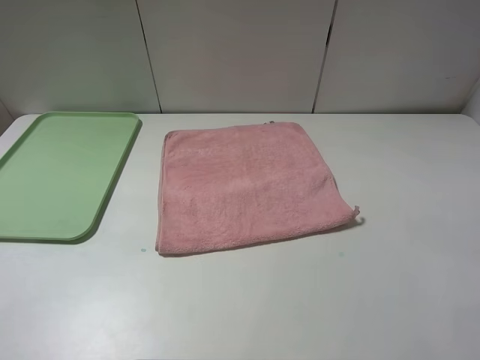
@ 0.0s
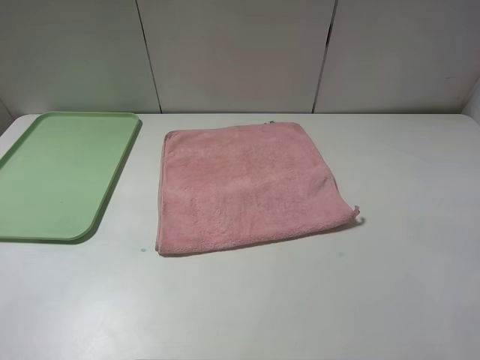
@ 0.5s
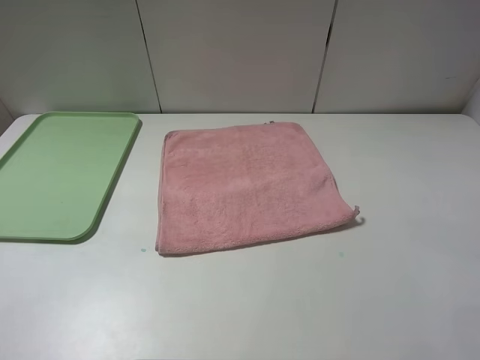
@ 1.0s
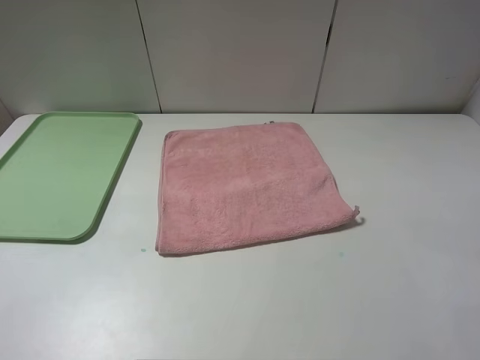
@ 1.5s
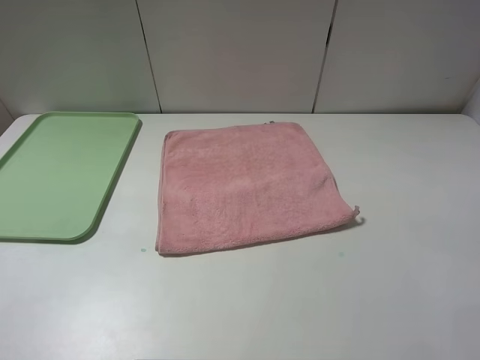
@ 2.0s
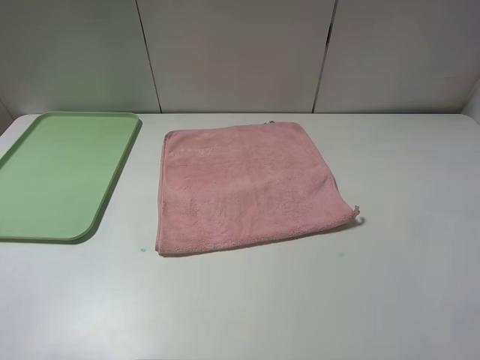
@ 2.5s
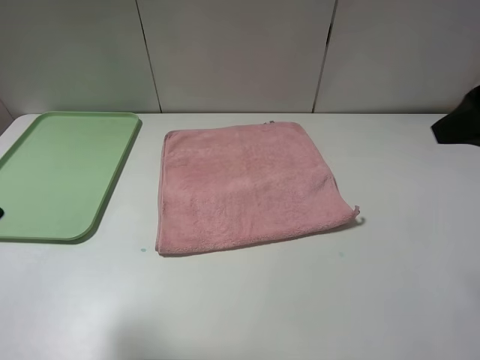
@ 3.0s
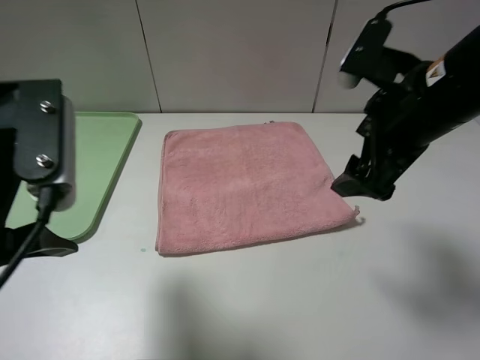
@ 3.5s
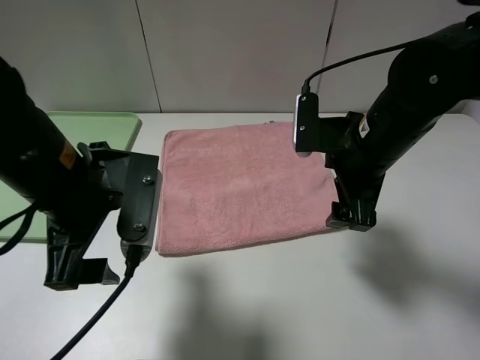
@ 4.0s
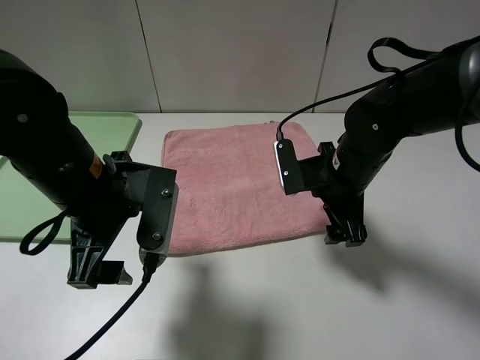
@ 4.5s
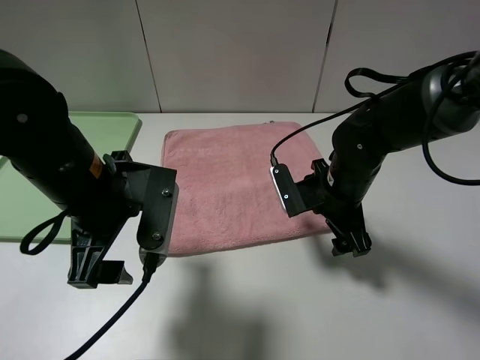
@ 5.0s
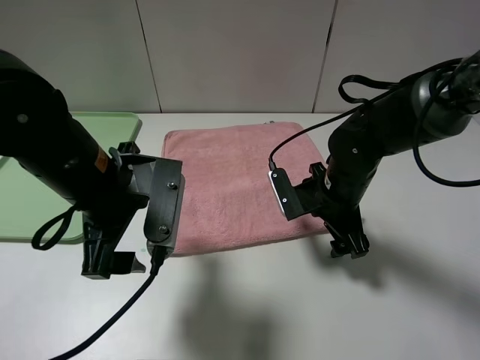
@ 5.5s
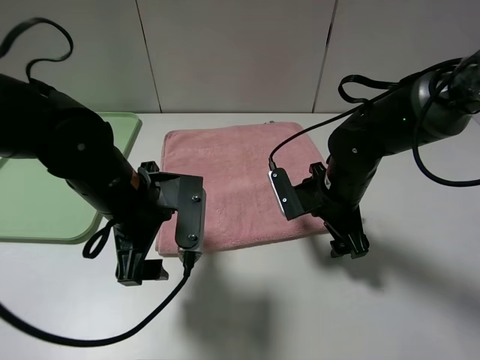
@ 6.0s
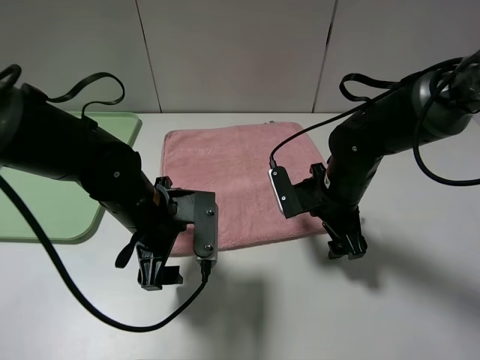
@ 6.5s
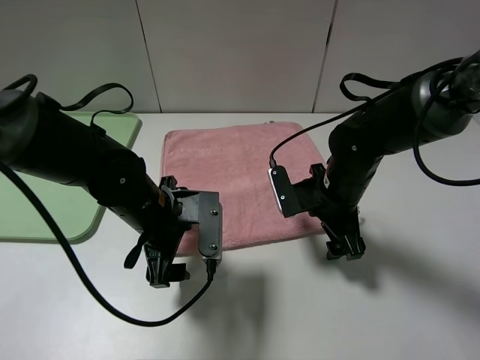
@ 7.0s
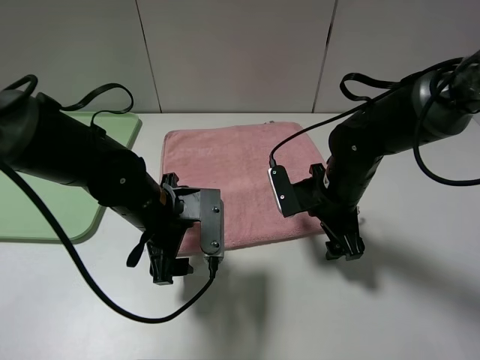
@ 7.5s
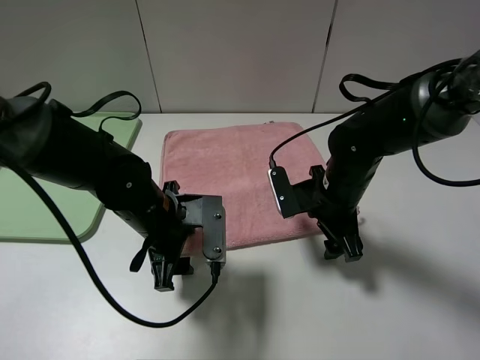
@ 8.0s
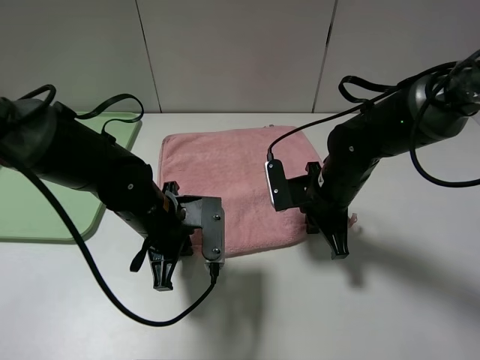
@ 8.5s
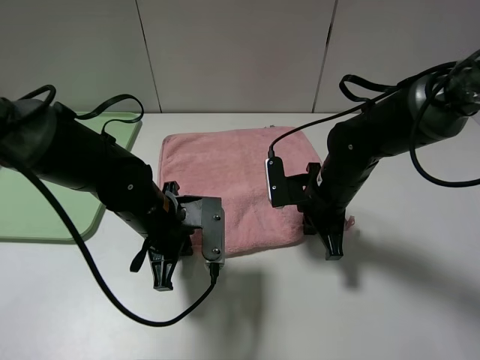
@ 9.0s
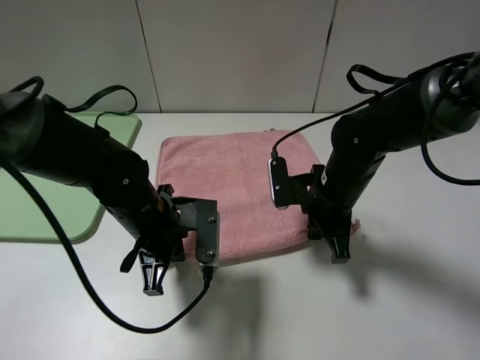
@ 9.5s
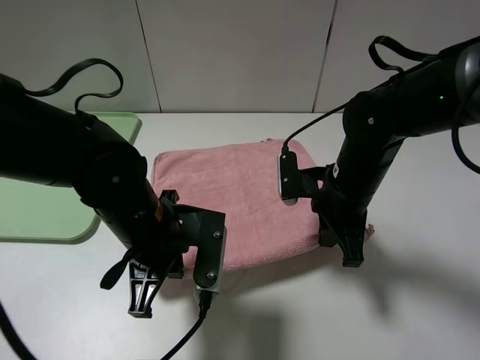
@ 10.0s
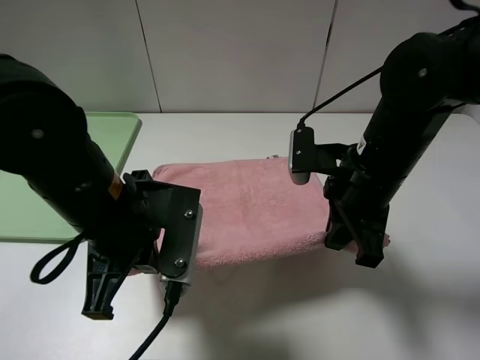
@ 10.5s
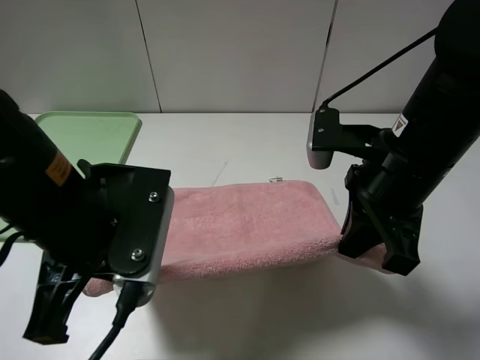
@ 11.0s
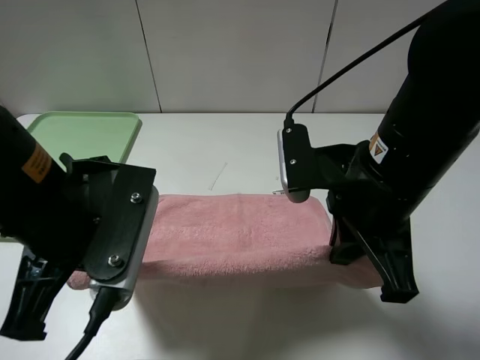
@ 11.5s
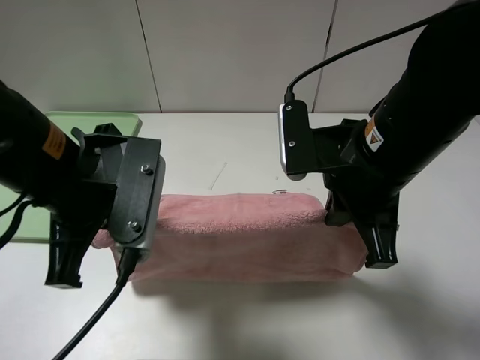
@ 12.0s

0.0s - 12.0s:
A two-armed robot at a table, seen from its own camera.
0.0s - 2.0s: Neither gripper changes place.
2.0s - 4.0s: The left gripper heads forward and to the right, covering approximately 25 cm. Meanwhile the right gripper moves forward and to the left, approximately 30 cm.
4.0s - 6.0s: The right gripper shifts some 10 cm downward, while the left gripper goes some 5 cm downward.
6.0s - 8.0s: The left gripper is displaced downward by roughly 5 cm.
8.0s - 10.0s: The left gripper moves approximately 5 cm, and closes. The right gripper closes.
10.0s - 12.0s: The left gripper shifts approximately 10 cm upward. Meanwhile the right gripper heads upward and backward, covering some 10 cm.

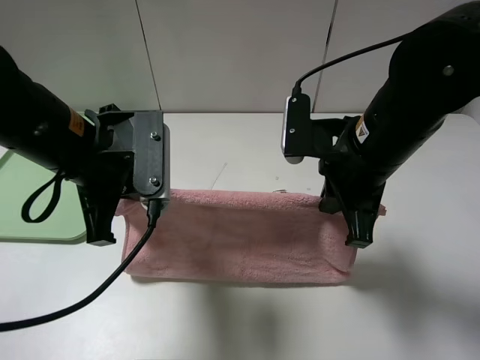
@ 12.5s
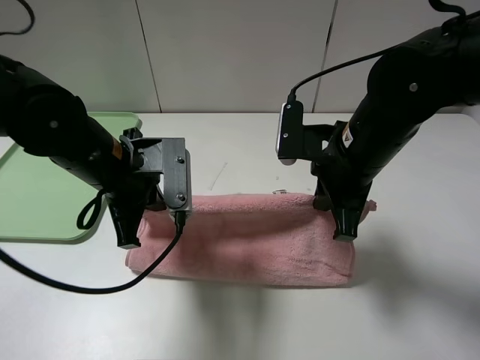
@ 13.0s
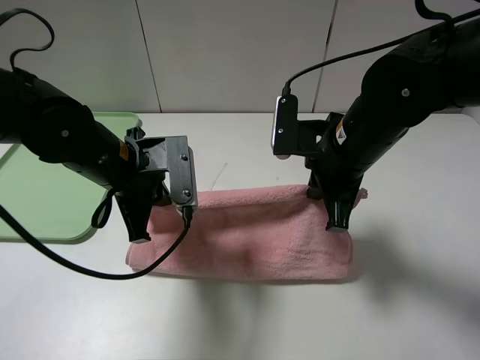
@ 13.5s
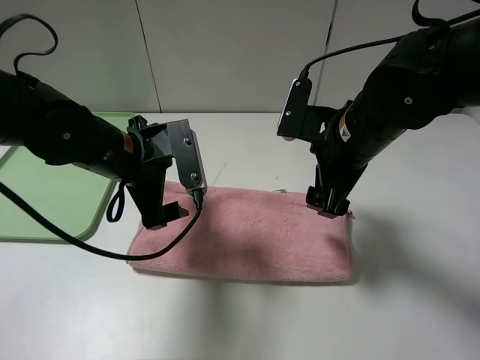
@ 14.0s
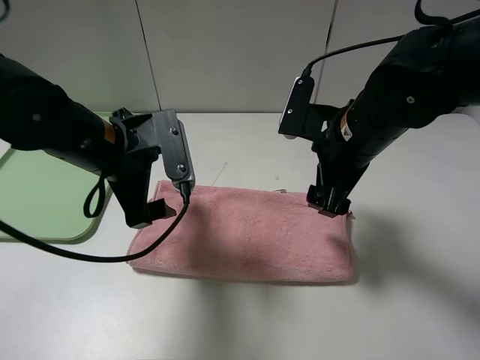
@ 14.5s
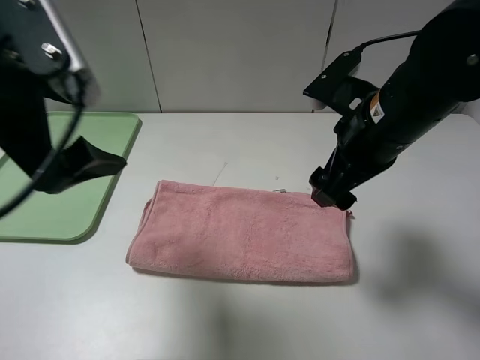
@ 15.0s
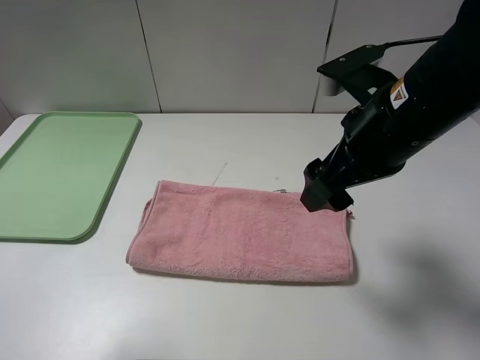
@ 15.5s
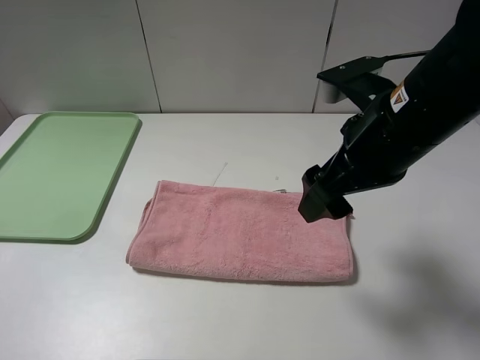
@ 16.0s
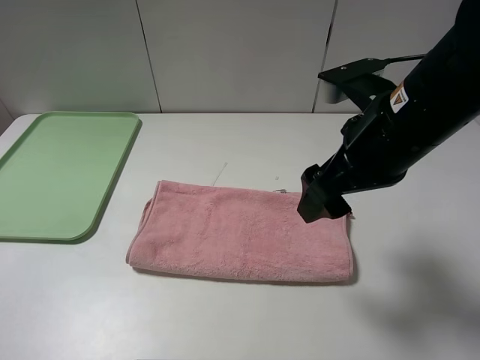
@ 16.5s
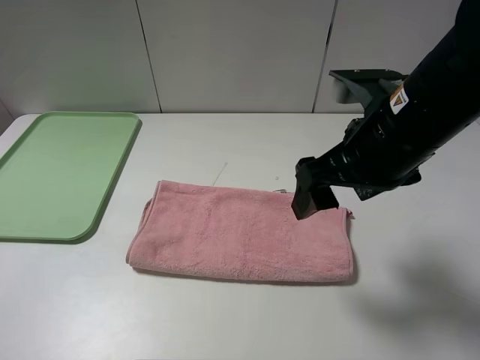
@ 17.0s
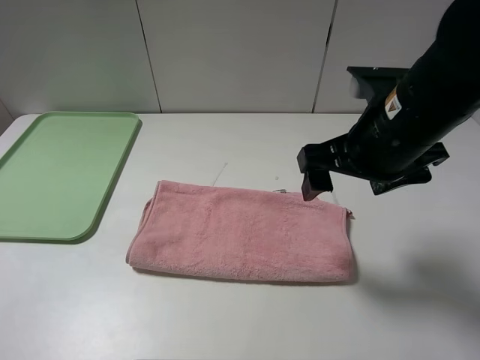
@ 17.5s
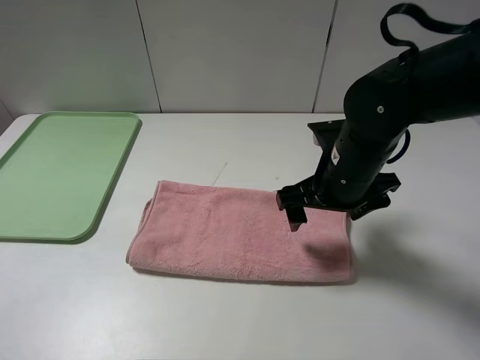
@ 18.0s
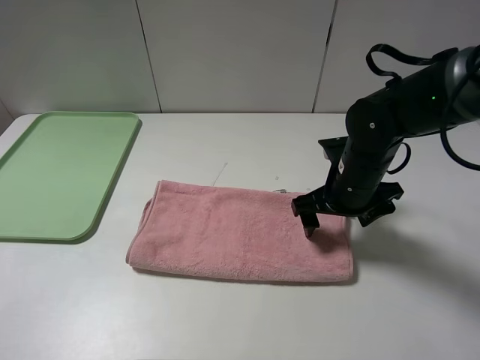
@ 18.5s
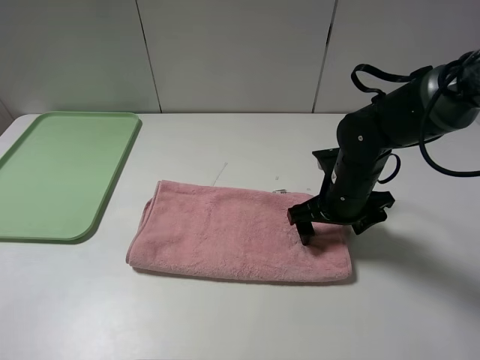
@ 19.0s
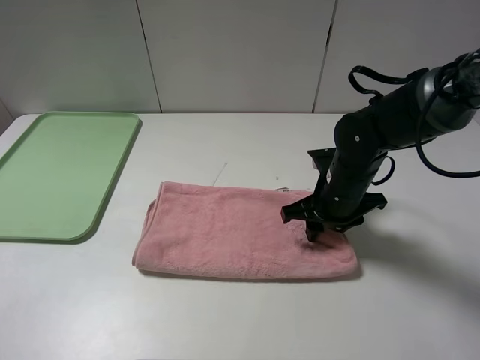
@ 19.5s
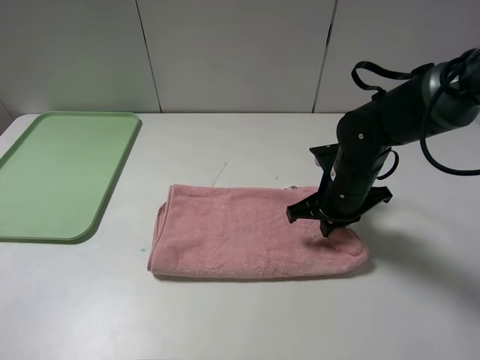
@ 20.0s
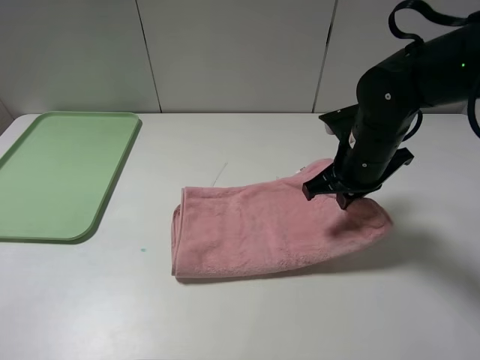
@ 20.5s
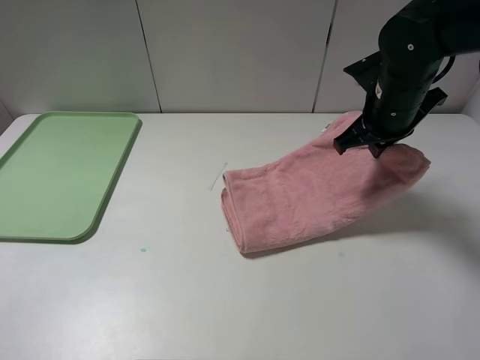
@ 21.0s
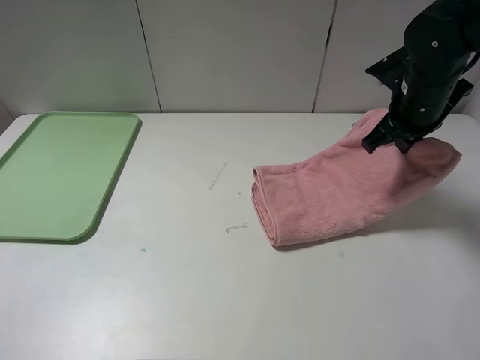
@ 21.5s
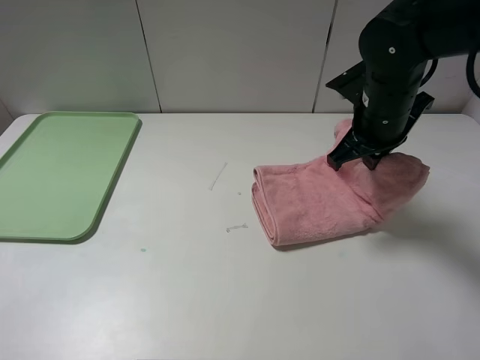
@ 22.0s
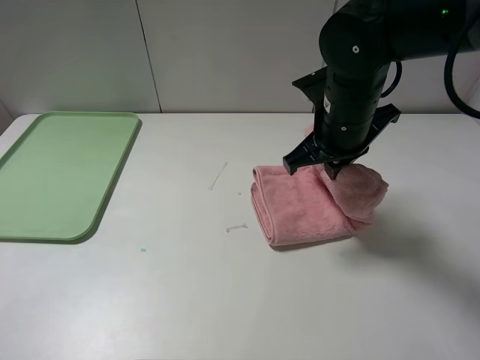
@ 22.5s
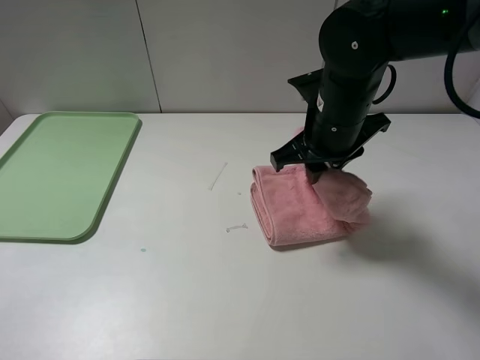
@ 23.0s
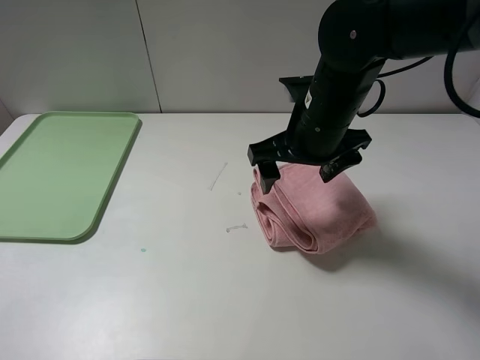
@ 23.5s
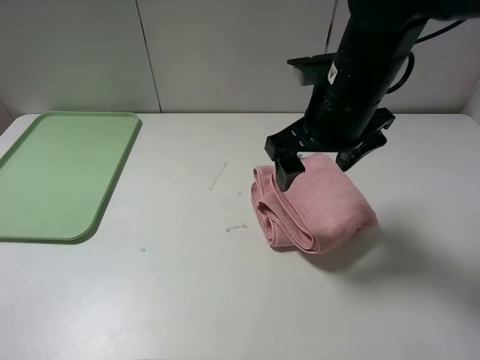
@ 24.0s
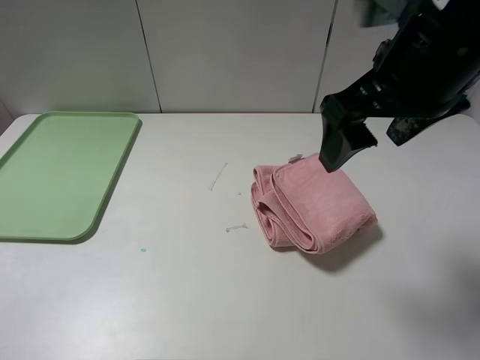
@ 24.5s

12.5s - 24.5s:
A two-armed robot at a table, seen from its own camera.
Step, 14.0s - 23.5s: Fold the pink towel from right to left with right gripper.
12.5s - 14.5s: The left gripper opens its fingers. Meanwhile the right gripper opens up.
14.5s - 16.5s: The left gripper heads backward and to the left, covering approximately 30 cm; the right gripper goes roughly 5 cm upward and backward.
16.5s - 18.5s: The right gripper heads downward and forward, covering about 15 cm.
18.5s - 20.5s: The right gripper ends up about 5 cm from where it was, and closes up.
22.5s - 24.5s: The right gripper moves upward and backward, about 15 cm, and opens up.

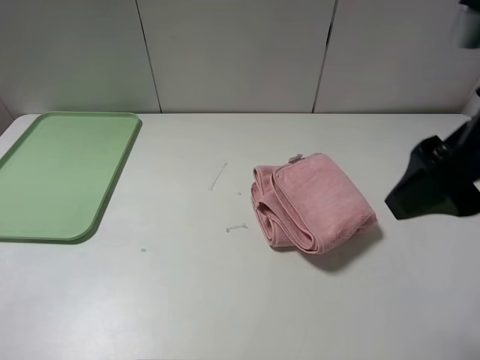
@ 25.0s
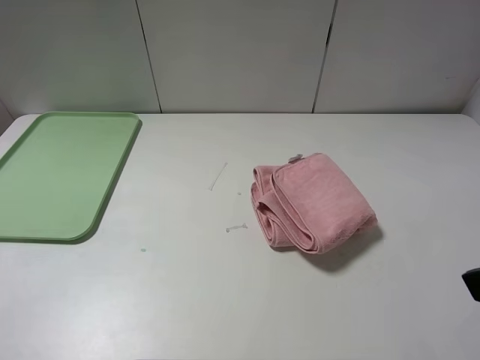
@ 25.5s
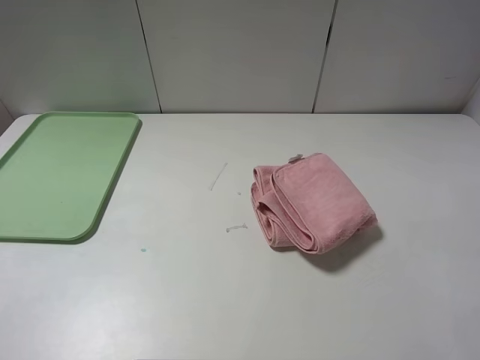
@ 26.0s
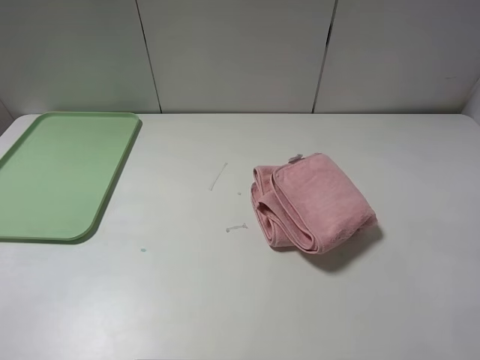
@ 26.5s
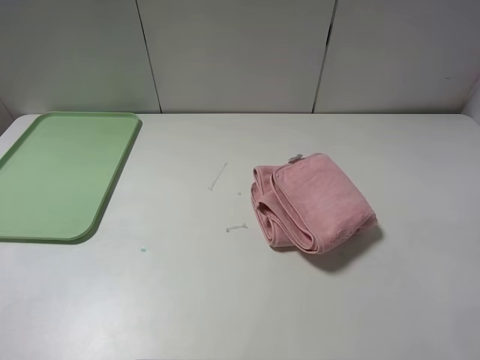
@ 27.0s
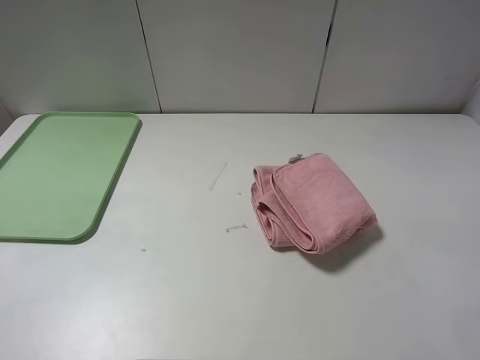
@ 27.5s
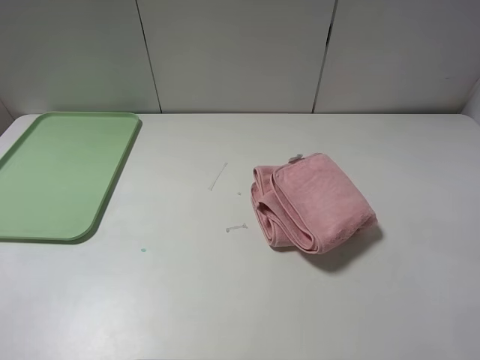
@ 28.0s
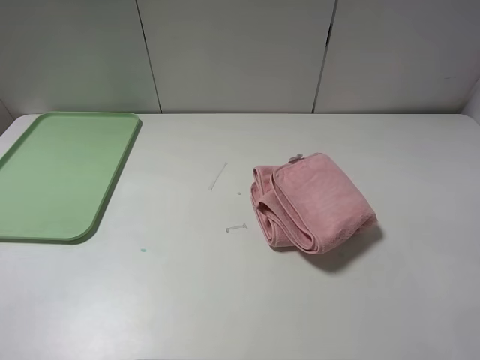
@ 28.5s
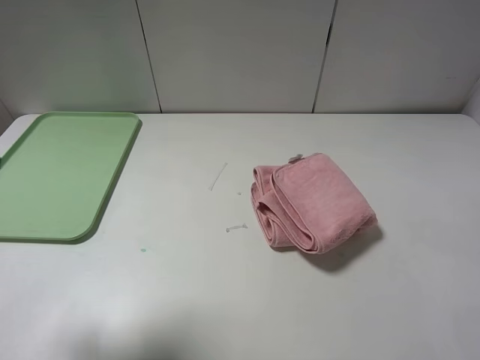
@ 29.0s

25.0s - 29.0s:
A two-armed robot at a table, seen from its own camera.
25.0s - 27.0s: The right gripper goes about 15 cm backward and to the right.
27.0s - 29.0s: The left gripper goes approximately 15 cm forward.
